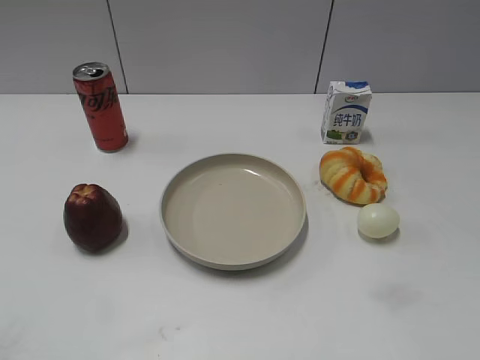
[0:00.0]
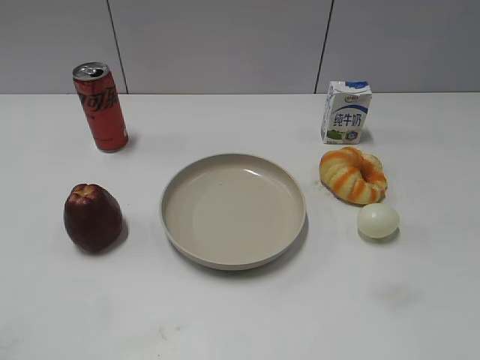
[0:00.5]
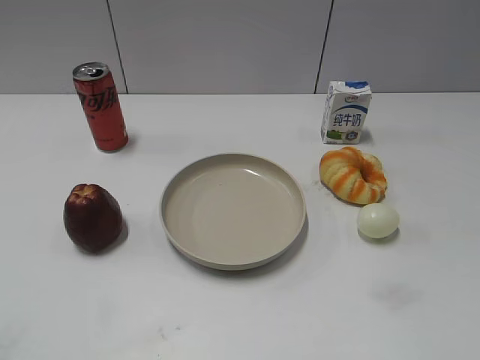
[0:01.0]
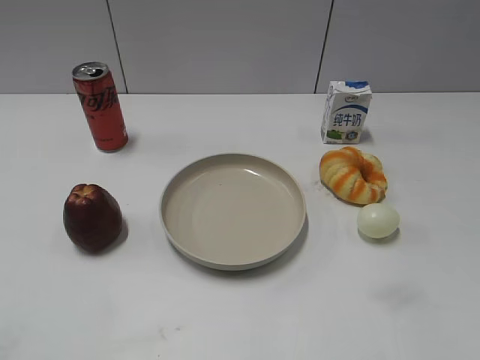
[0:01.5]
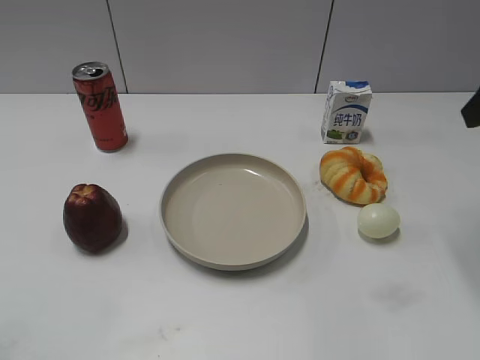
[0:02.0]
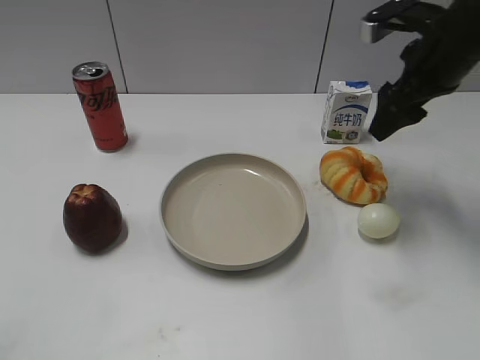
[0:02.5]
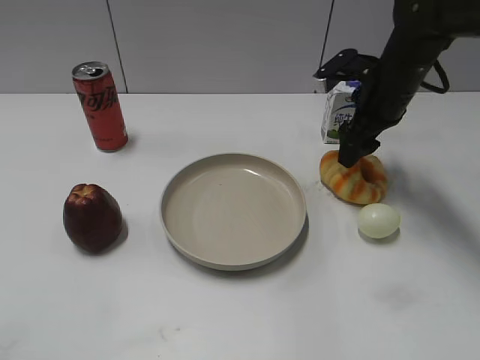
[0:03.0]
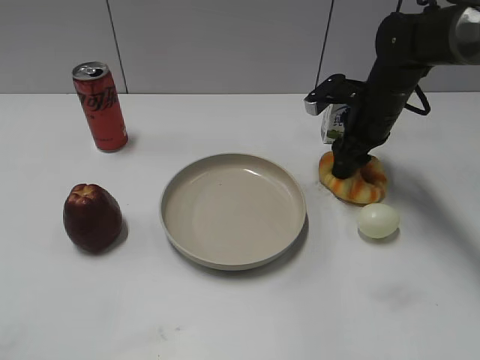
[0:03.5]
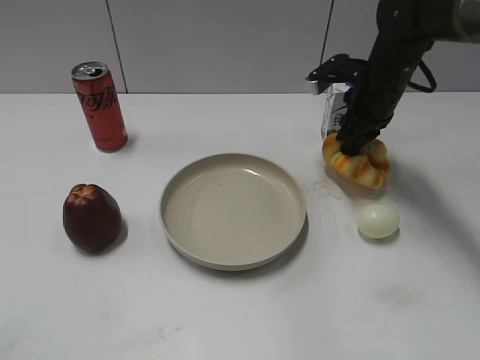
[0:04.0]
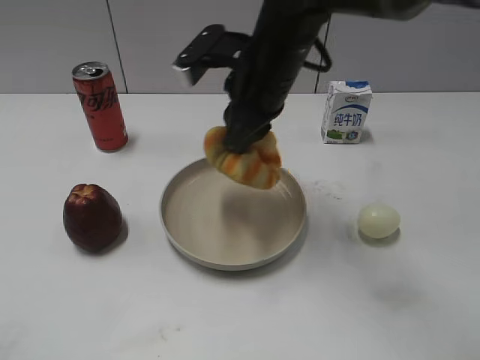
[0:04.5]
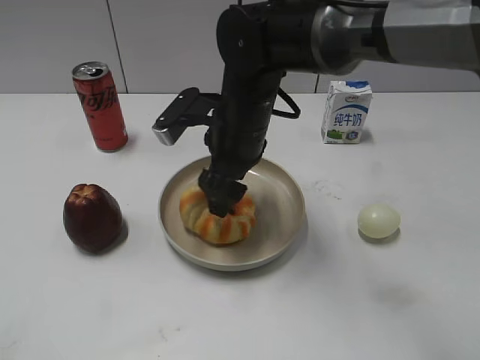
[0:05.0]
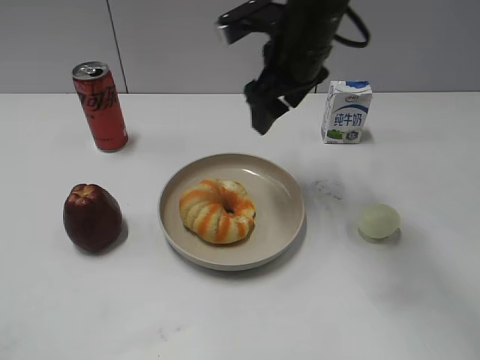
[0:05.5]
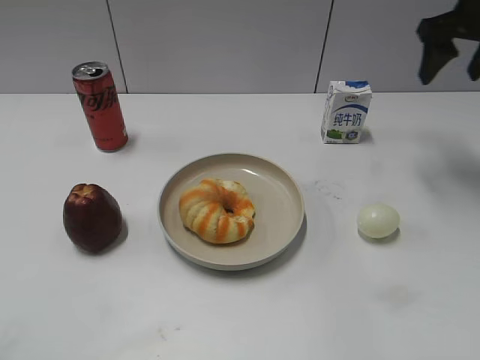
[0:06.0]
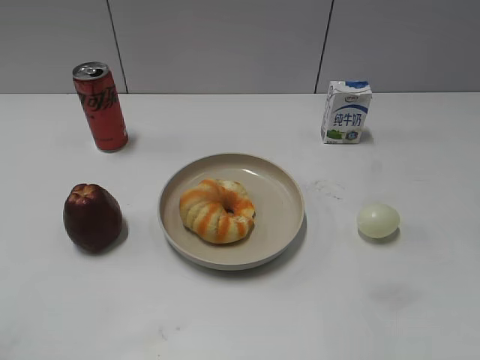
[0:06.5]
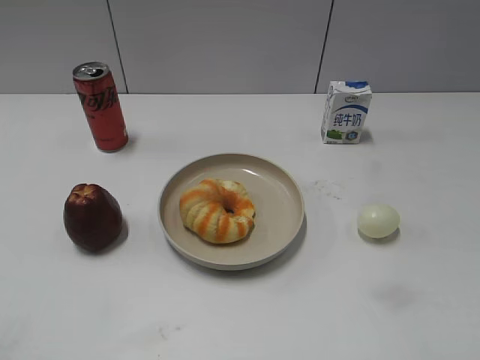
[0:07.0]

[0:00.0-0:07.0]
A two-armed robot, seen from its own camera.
Step, 0:01.0 to 0:03.5: Grasp the round bread with right gripper.
Step, 0:04.0 to 0:05.0: Place the round bread on the plate with right gripper.
0:02.0 to 0:03.5: The right gripper travels downward, forward and to the left by roughly 25 cm.
0:03.5 to 0:05.0: The right gripper is displaced to the left and backward by some 20 cm, and opens its fingers.
0:05.0 to 0:07.0: The right gripper heads to the right and backward, covering approximately 40 cm.
